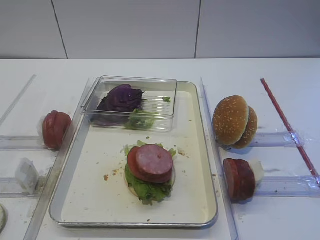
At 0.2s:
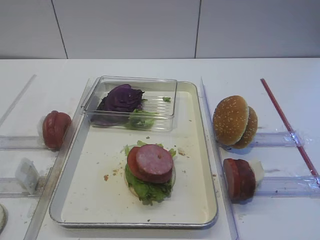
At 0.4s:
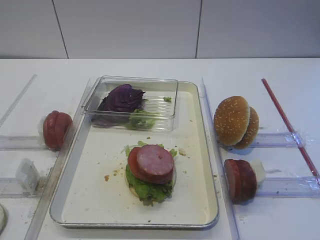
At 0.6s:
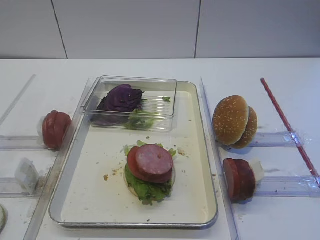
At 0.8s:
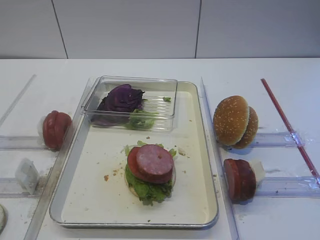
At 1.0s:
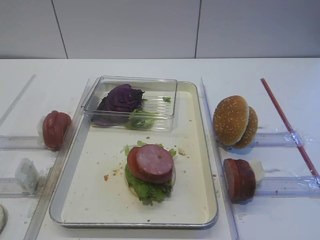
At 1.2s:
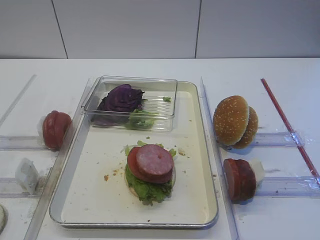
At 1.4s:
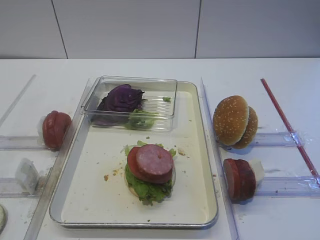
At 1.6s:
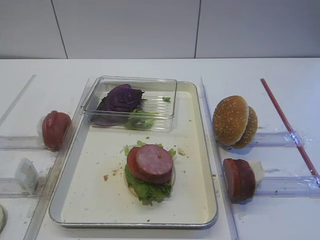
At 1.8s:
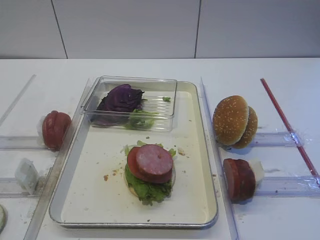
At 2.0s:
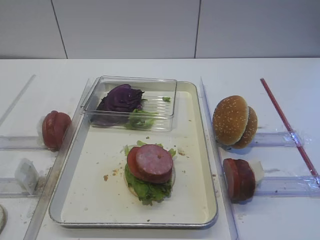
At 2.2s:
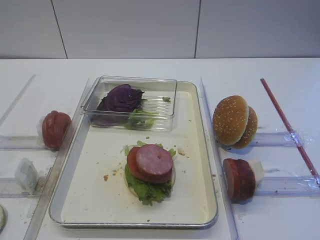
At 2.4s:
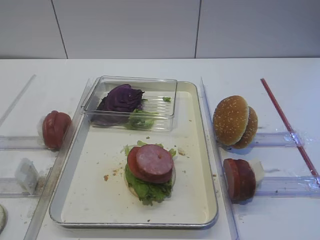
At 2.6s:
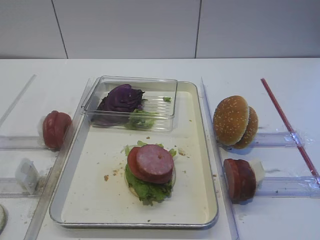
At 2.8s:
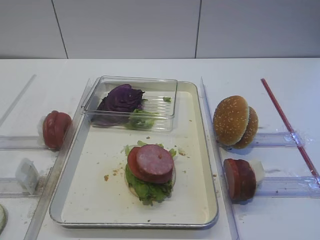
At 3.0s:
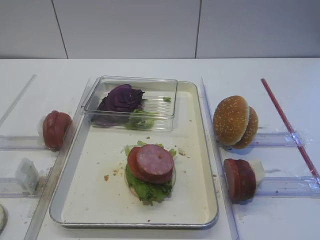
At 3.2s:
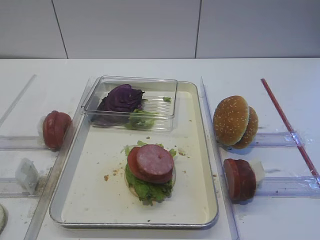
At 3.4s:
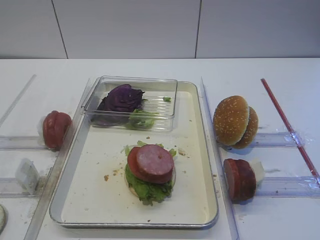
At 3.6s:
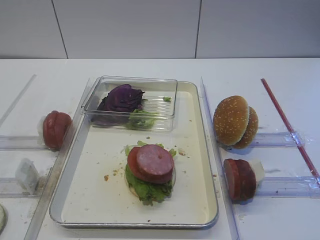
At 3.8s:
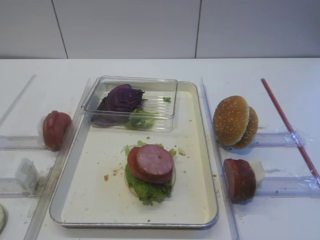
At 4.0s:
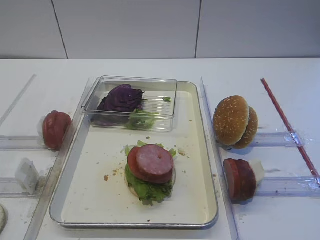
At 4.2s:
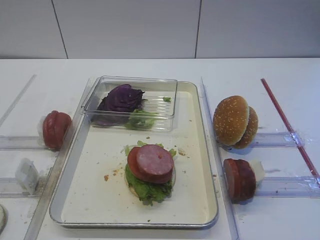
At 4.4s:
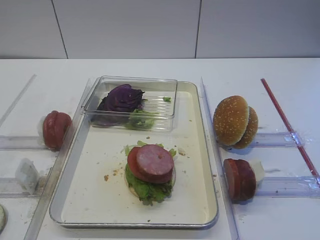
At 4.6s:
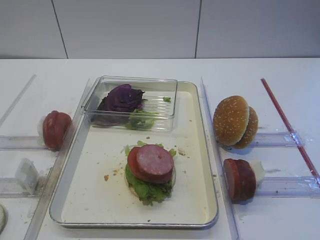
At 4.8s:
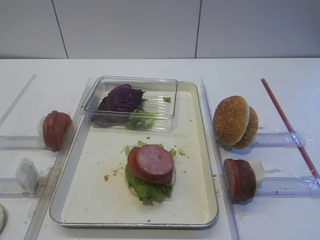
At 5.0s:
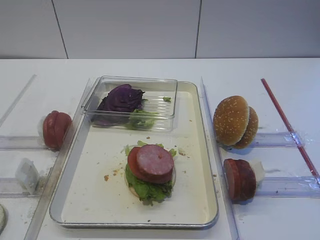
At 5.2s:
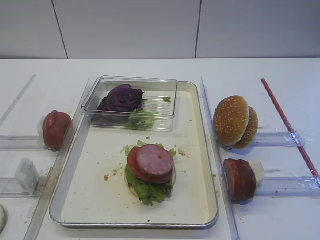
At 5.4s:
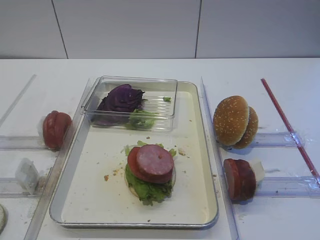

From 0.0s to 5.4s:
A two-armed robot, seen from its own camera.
From 0.0s to 1.4s: Both grippers stay about where they are.
From 1.4s to 5.4s: Both grippers stay put.

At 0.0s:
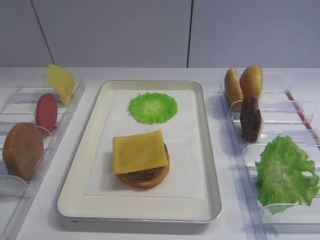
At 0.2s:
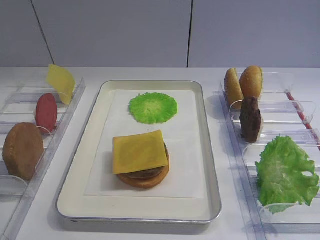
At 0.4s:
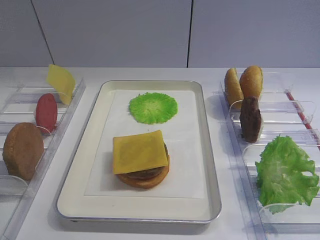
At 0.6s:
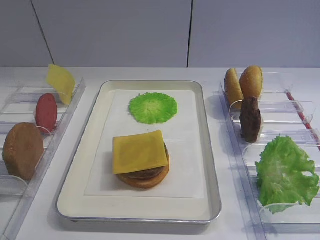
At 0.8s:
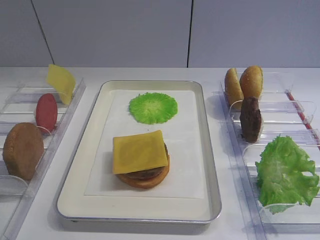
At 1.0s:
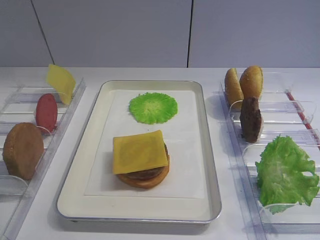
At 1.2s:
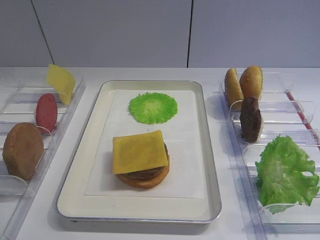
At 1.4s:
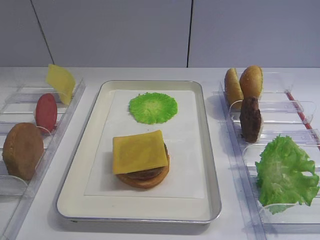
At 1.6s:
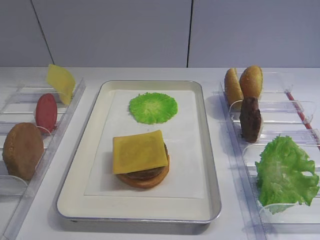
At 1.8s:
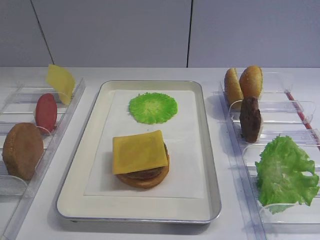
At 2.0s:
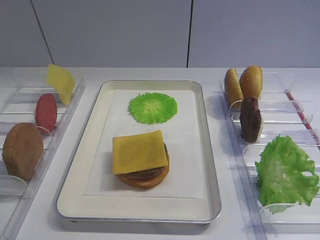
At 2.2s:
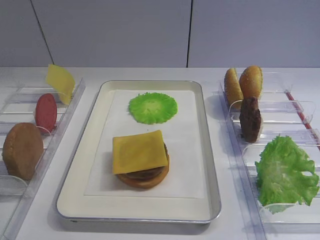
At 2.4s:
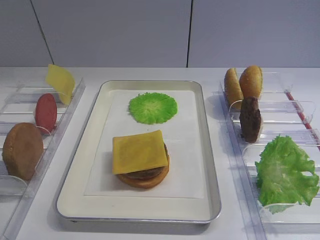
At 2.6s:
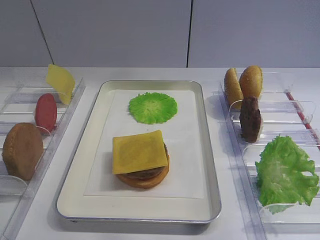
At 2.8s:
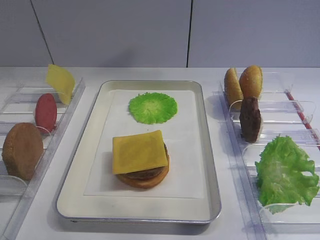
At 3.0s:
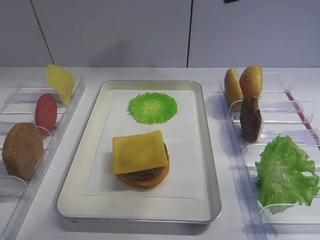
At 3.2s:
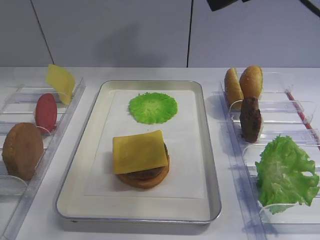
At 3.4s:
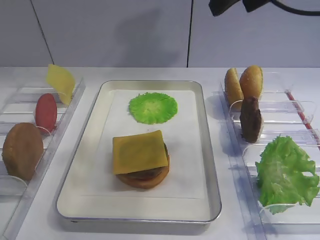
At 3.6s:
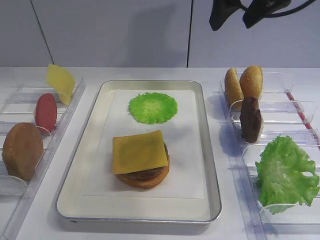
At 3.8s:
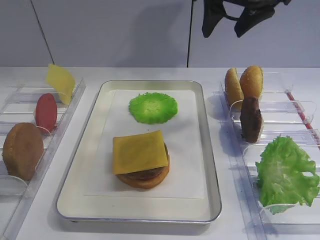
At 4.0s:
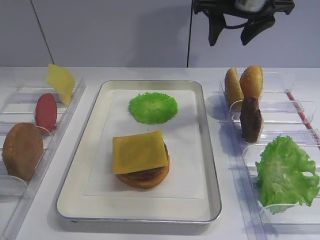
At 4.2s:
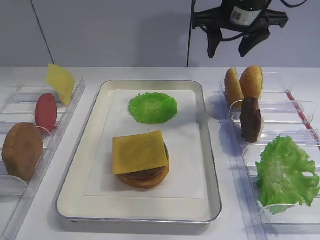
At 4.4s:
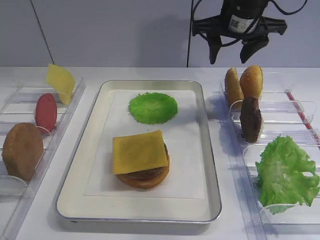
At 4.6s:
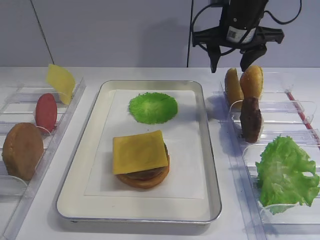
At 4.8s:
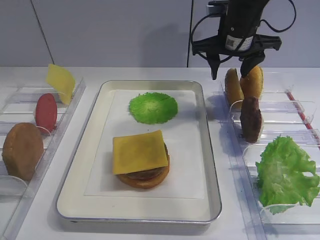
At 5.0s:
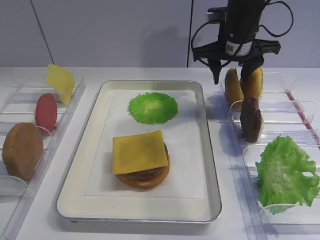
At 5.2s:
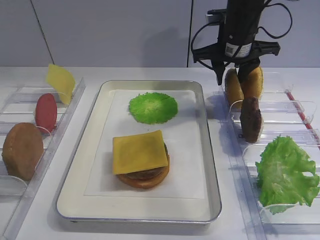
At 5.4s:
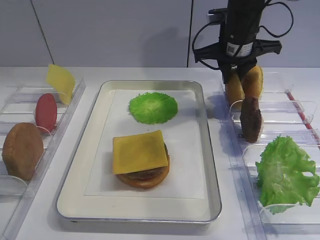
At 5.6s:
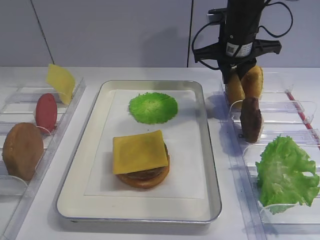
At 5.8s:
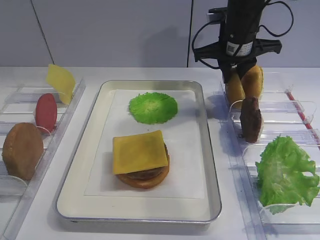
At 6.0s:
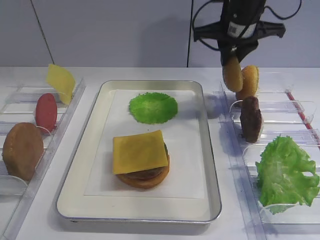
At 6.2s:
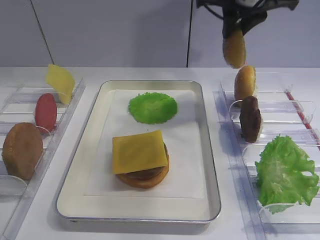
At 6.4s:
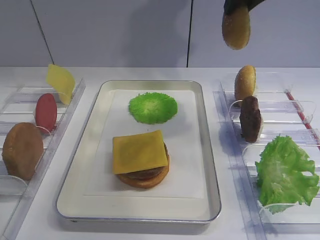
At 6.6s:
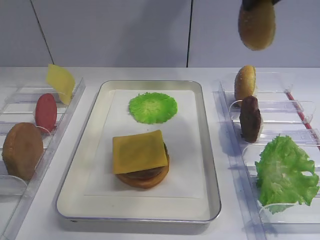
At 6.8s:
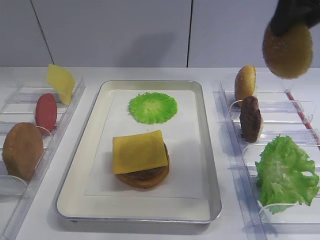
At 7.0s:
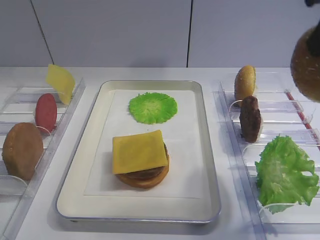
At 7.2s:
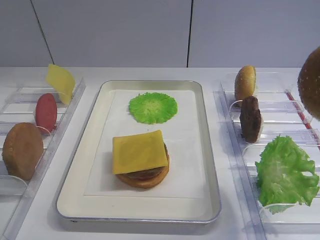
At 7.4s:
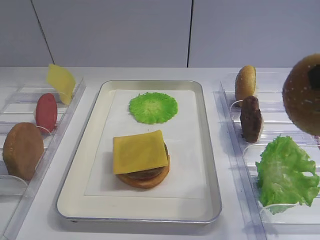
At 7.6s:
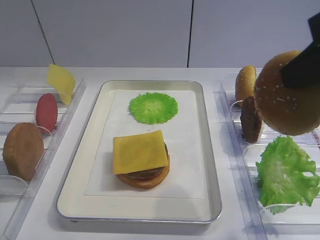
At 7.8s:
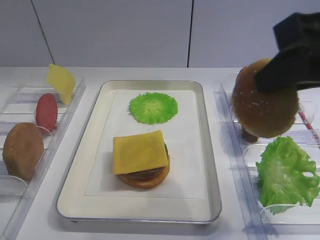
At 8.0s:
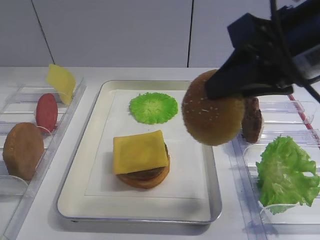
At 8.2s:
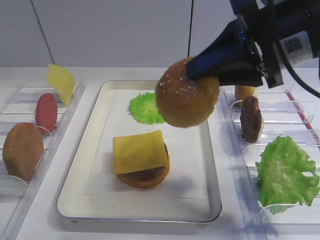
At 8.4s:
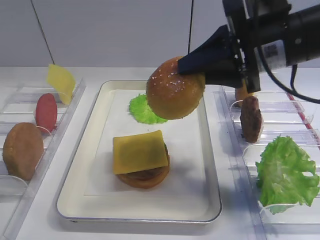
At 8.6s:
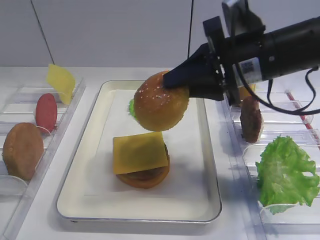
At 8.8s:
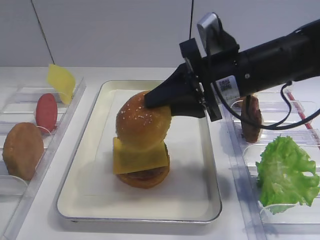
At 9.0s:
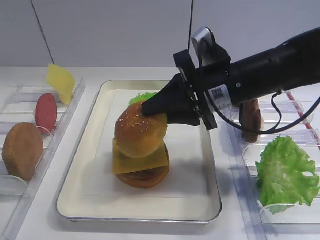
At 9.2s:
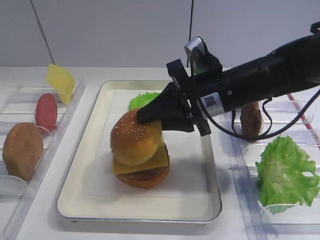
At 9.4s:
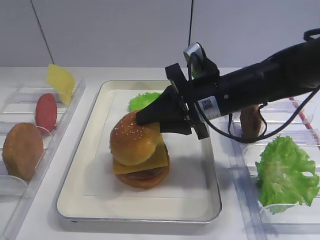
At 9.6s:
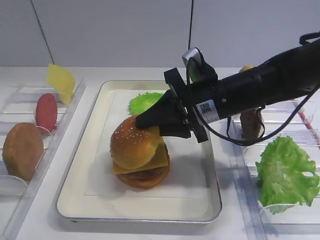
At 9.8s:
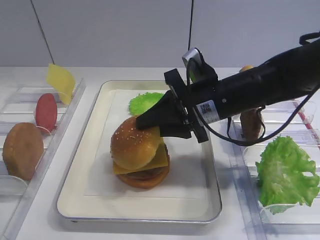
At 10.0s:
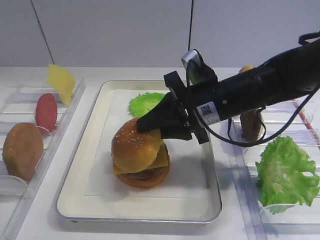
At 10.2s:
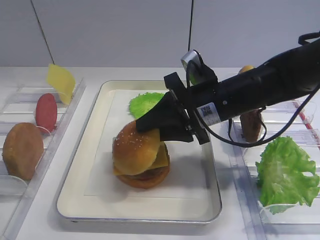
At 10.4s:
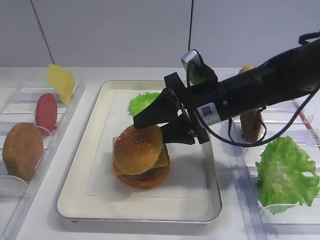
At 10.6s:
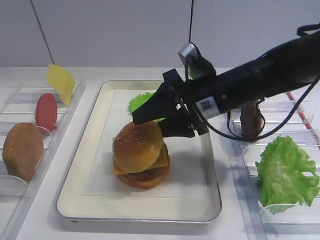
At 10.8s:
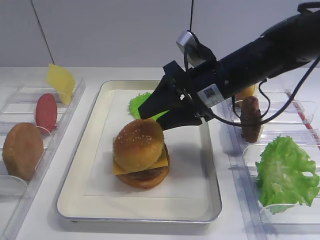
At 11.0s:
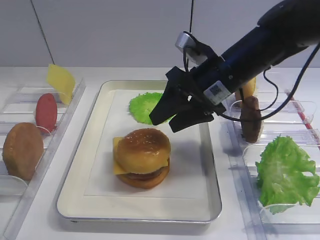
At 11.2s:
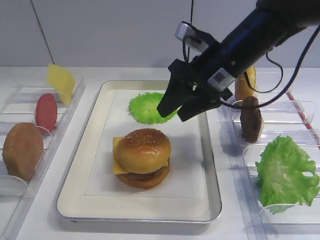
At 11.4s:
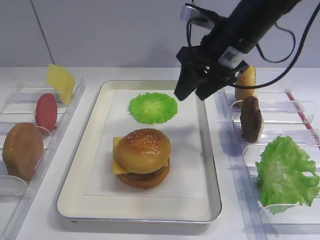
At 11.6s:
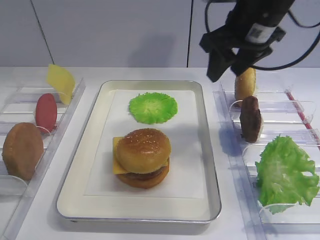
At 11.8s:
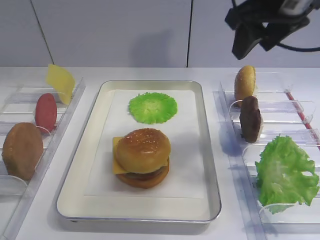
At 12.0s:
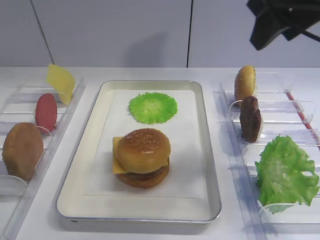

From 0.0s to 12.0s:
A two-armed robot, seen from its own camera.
Step, from 0.0s to 6.2s: Pick up the hamburger lid with the right gripper.
Step, from 6.4s to 11.0s: Place the hamburger lid on the cheese slice with the right gripper.
From 1.6s to 3.0s: The right gripper shifts roughly 25 cm forward and upward.
From 3.0s to 4.4s: The right gripper moves forward and downward, approximately 25 cm.
From 4.4s to 6.0s: The right gripper closes its fingers.
From 6.0s to 7.6s: The right gripper is displaced backward by roughly 25 cm.
From 7.6s to 9.0s: The right gripper goes approximately 20 cm downward, forward and to the left.
From 9.0s to 10.4s: The right gripper opens up.
From 10.4s to 12.0s: The right gripper travels upward and to the right by some 20 cm.

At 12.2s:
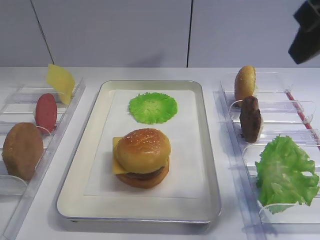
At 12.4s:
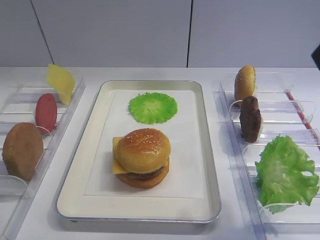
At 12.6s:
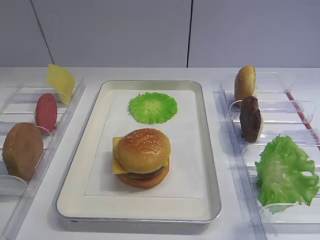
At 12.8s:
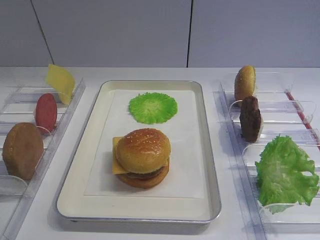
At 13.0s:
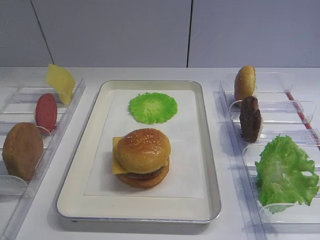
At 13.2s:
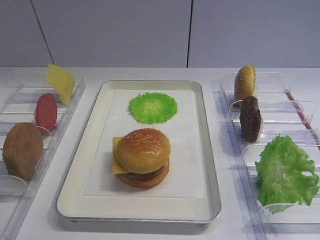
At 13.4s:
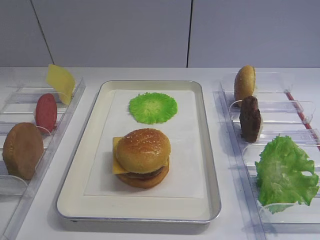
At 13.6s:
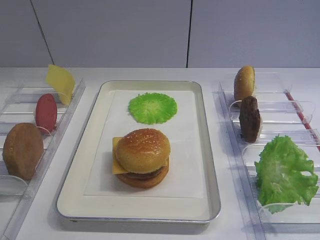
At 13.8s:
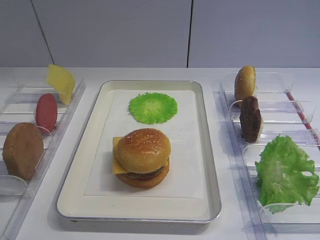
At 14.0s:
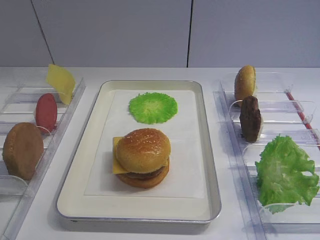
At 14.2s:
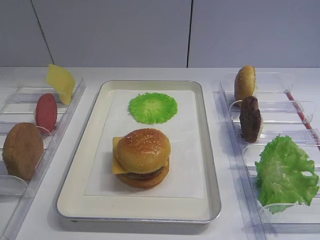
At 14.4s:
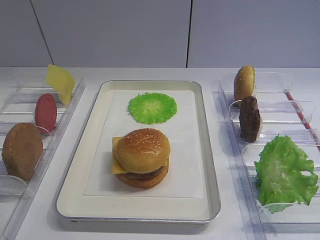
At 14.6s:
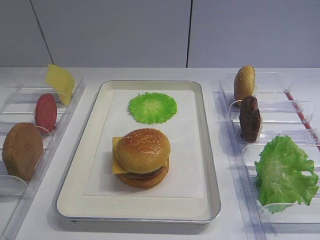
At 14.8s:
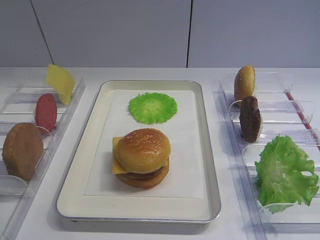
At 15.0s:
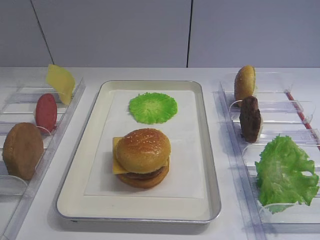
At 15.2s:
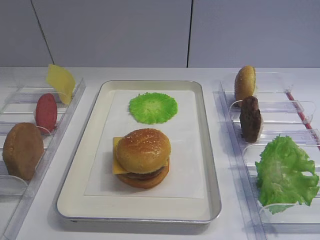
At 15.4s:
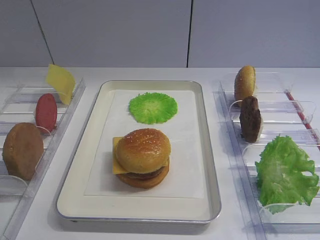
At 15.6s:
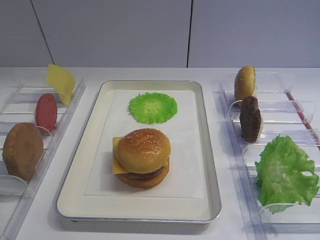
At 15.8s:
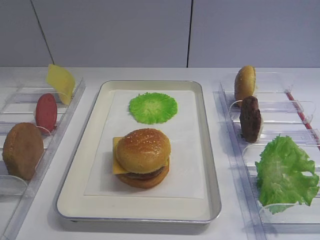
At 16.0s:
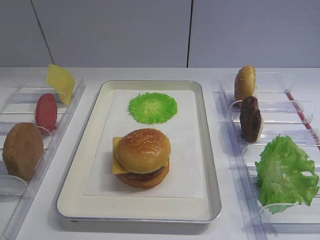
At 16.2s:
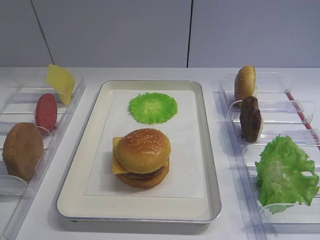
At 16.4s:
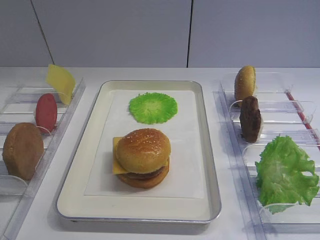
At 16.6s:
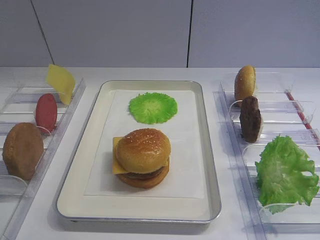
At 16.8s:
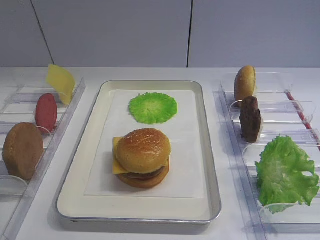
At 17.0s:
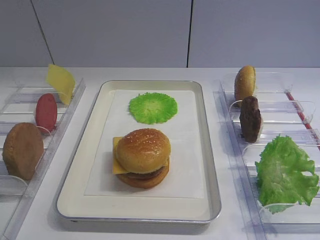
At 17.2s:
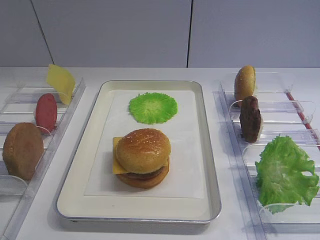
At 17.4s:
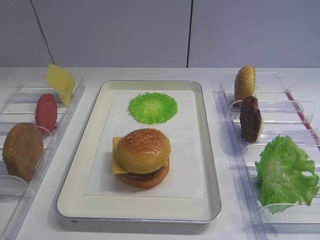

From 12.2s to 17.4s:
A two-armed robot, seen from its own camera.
From 12.2s to 14.0s: The right gripper goes some 25 cm backward and downward.
